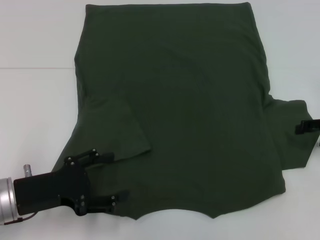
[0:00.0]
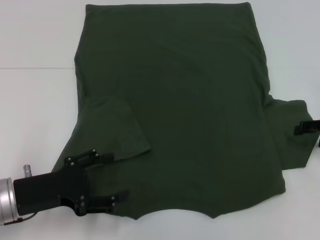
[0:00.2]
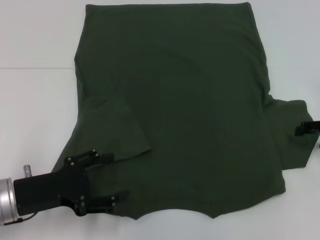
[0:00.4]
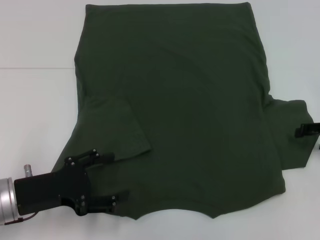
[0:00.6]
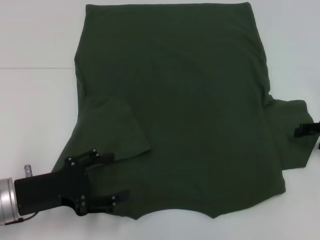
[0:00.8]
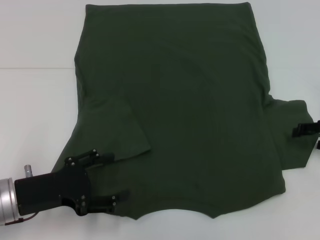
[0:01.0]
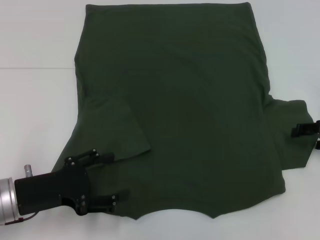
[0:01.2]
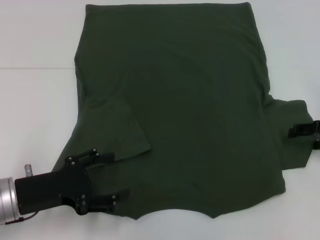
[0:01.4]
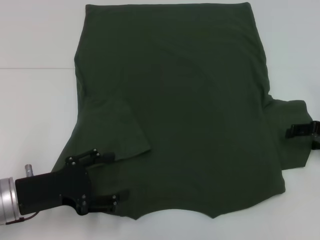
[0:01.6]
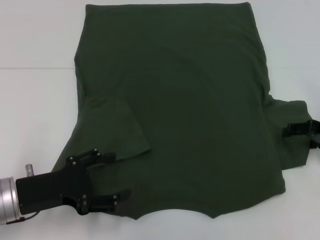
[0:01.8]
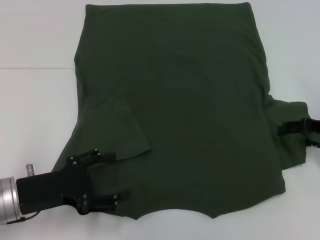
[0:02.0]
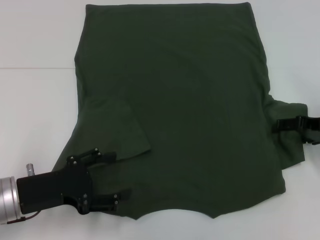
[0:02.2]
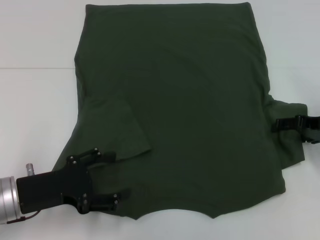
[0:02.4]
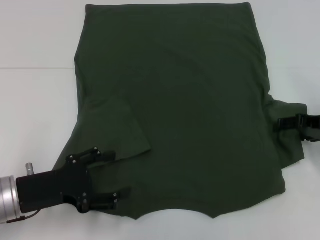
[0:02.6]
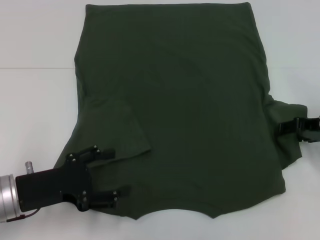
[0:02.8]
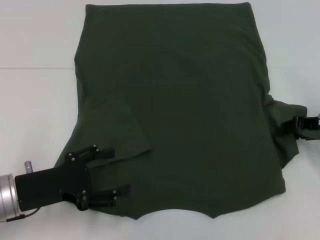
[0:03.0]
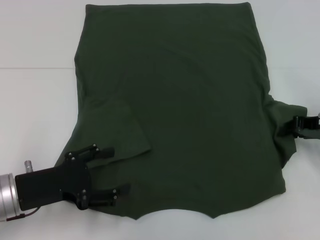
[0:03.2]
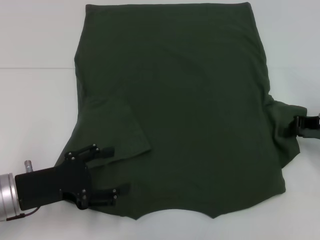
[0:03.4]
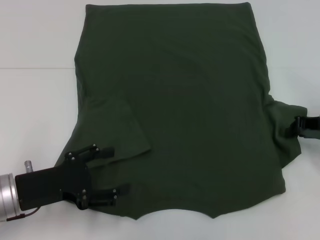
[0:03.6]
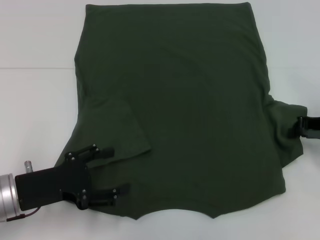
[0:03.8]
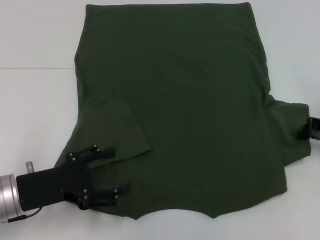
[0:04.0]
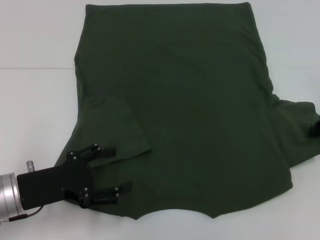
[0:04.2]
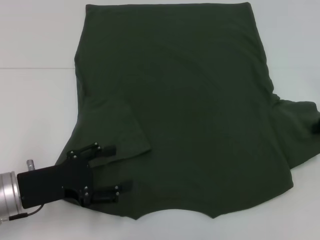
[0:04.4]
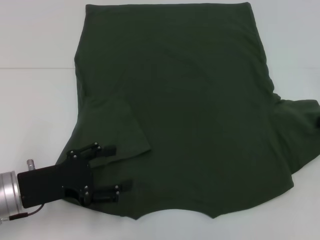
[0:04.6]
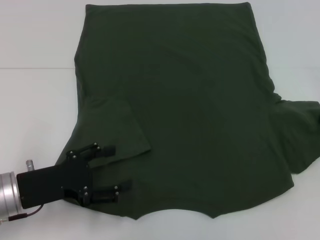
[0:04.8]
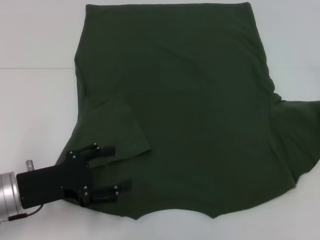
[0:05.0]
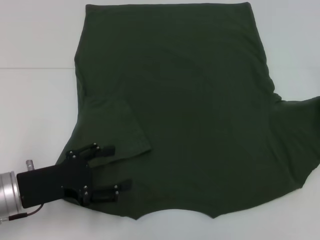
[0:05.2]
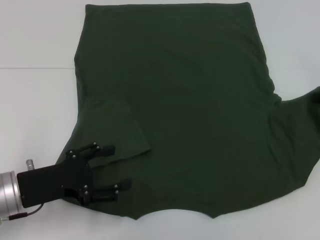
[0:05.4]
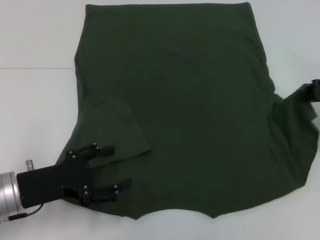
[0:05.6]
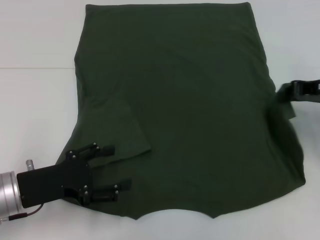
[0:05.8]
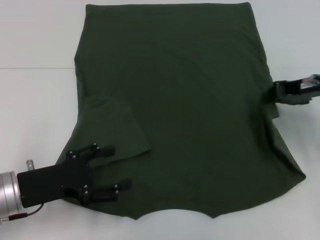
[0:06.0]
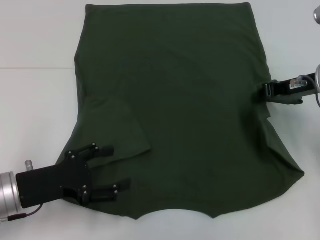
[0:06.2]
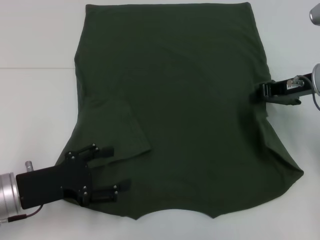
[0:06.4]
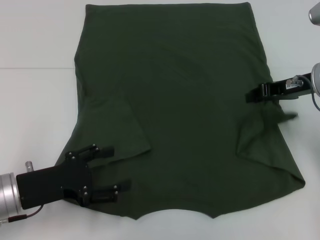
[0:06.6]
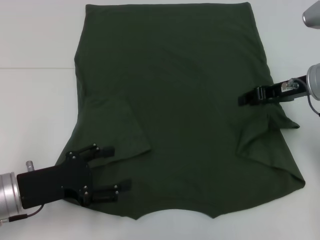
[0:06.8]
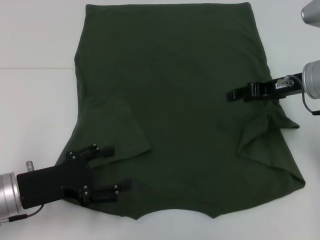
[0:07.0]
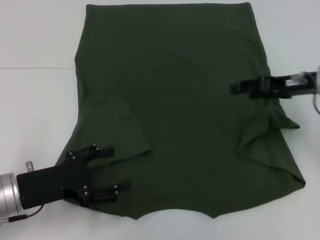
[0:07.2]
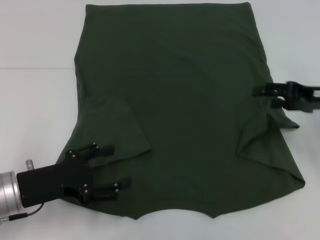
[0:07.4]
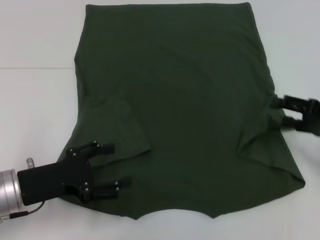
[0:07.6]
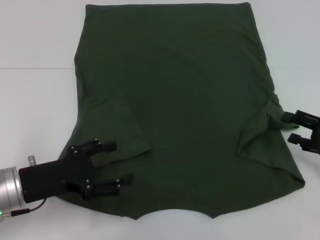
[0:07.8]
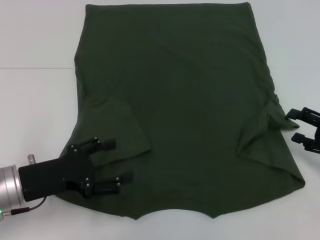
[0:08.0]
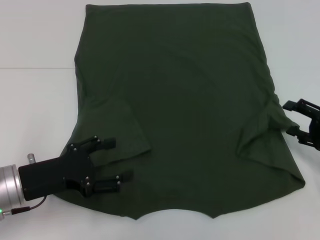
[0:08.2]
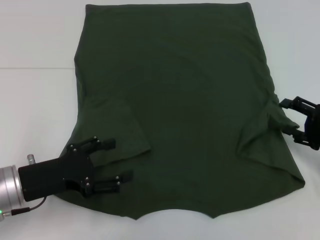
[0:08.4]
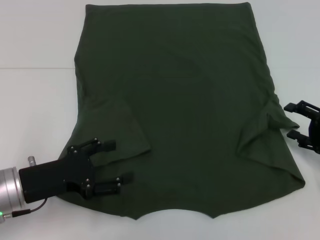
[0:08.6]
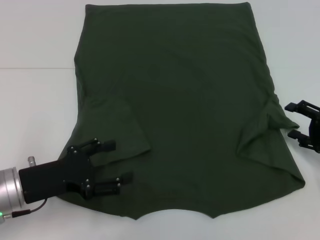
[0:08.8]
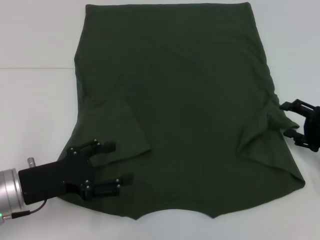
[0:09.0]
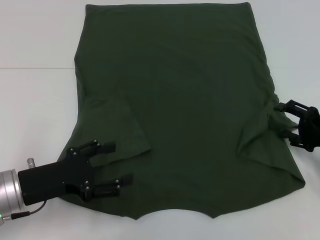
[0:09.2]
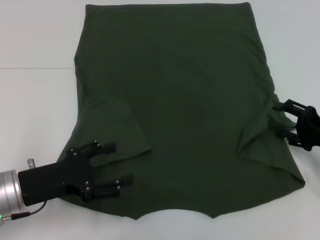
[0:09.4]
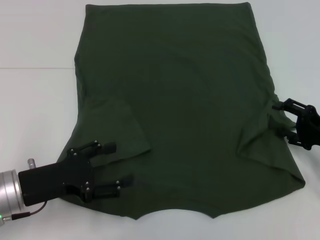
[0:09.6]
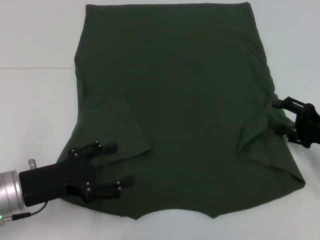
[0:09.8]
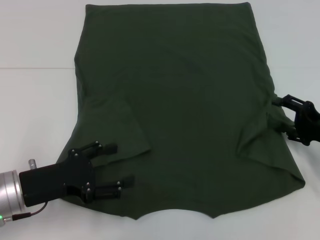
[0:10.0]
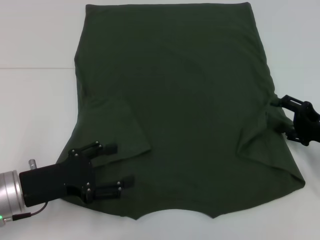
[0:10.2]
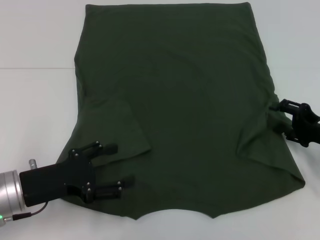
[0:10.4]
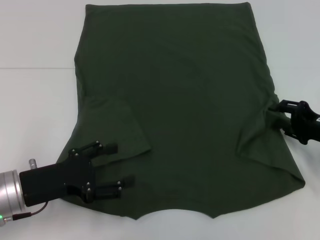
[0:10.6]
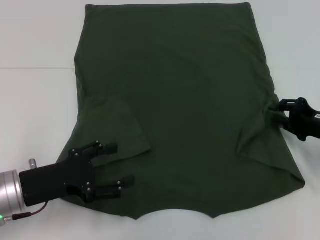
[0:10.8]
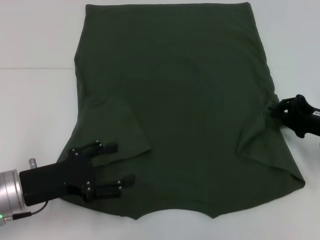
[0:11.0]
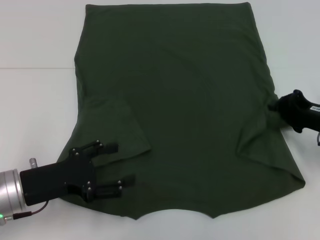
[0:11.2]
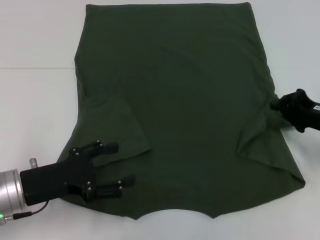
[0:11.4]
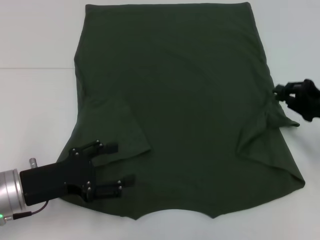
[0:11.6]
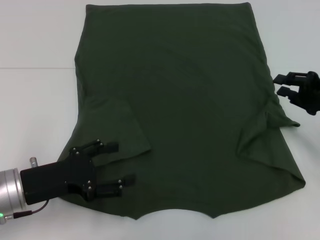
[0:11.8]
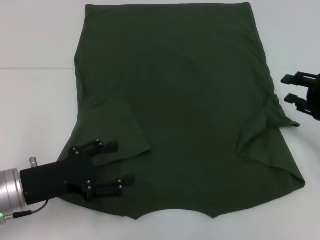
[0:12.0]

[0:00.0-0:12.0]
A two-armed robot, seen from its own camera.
0:00.0 to 0:03.0: There are only small adjustments of the grippers.
0:03.0 to 0:04.4: The right gripper closes its fingers.
0:04.4 to 0:06.0: The right gripper travels to the left by roughly 10 cm.
0:06.0 to 0:07.6: The right gripper travels backward, downward and to the right by some 10 cm, and opens its fingers.
0:07.6 to 0:09.0: The right gripper changes place by roughly 5 cm.
0:09.0 to 0:10.4: The grippers move only a little.
0:10.4 to 0:12.0: The right gripper closes up.

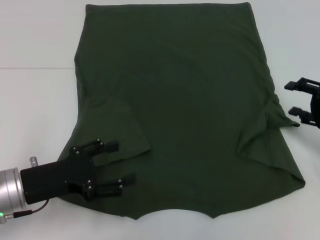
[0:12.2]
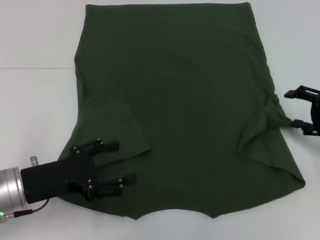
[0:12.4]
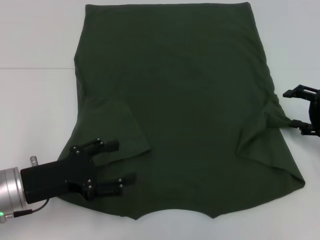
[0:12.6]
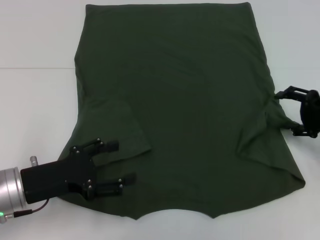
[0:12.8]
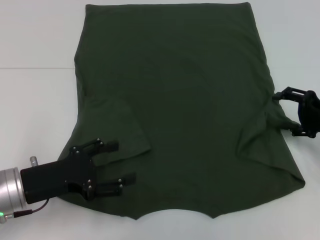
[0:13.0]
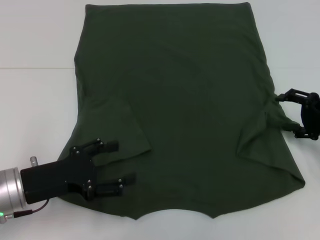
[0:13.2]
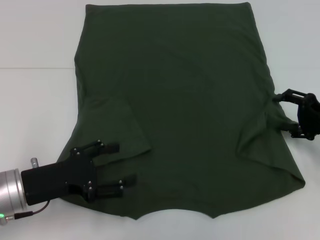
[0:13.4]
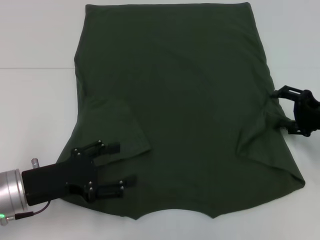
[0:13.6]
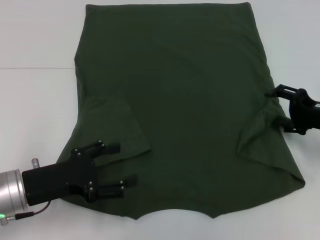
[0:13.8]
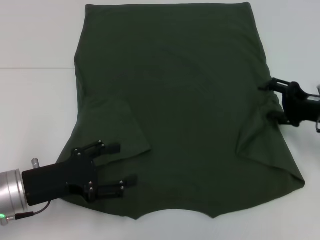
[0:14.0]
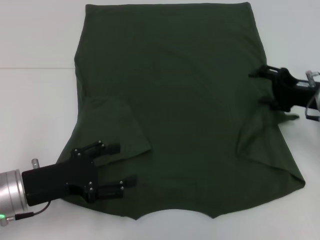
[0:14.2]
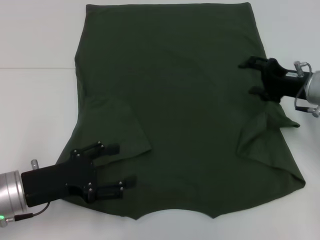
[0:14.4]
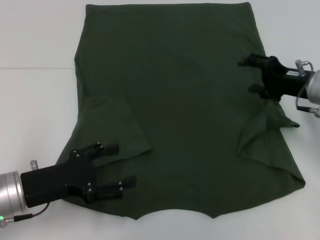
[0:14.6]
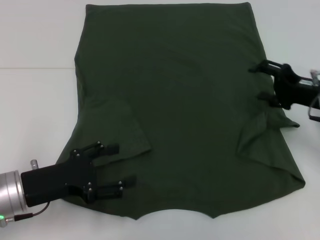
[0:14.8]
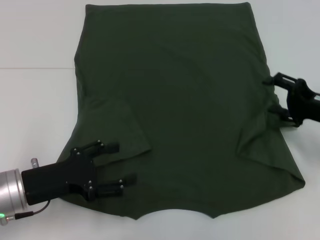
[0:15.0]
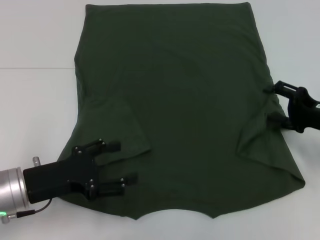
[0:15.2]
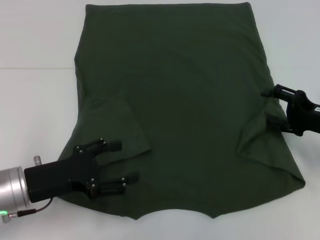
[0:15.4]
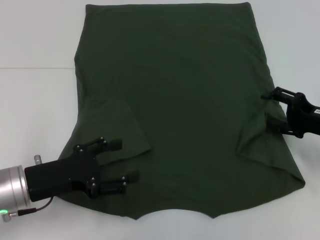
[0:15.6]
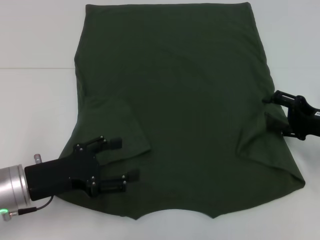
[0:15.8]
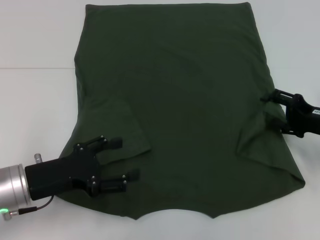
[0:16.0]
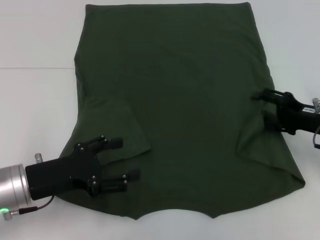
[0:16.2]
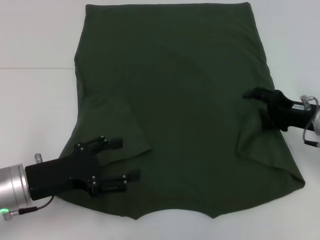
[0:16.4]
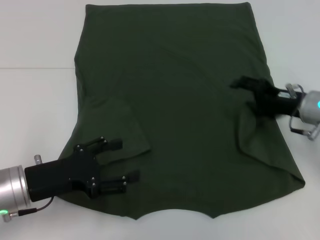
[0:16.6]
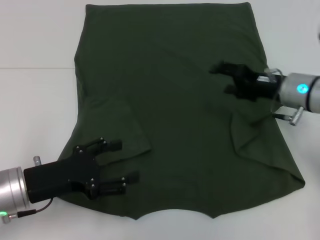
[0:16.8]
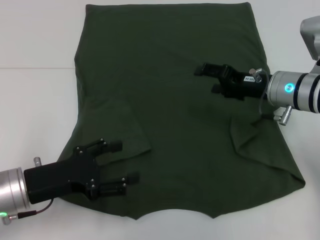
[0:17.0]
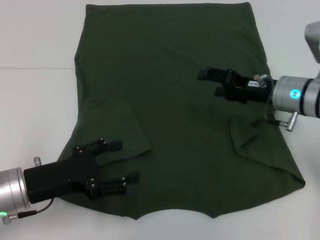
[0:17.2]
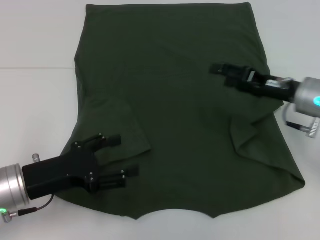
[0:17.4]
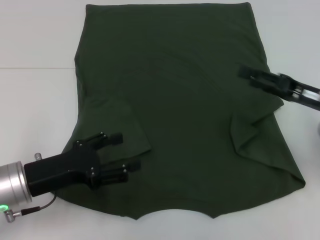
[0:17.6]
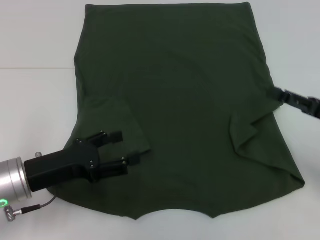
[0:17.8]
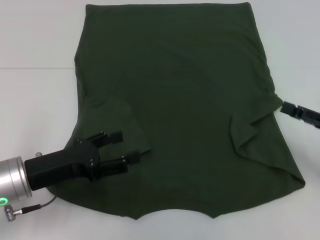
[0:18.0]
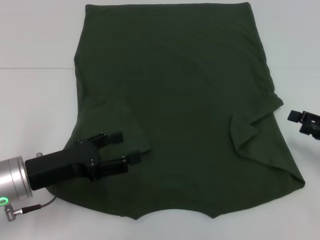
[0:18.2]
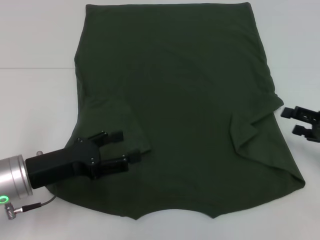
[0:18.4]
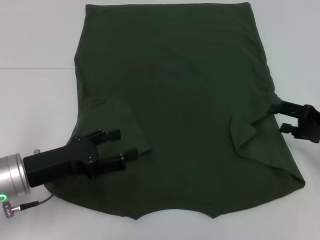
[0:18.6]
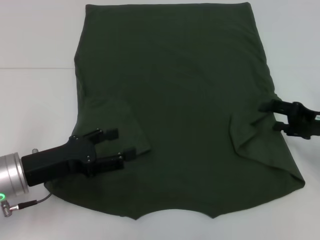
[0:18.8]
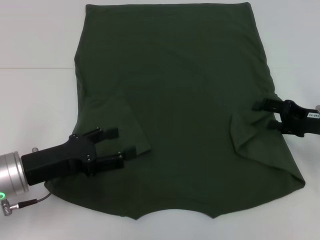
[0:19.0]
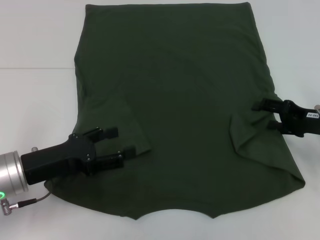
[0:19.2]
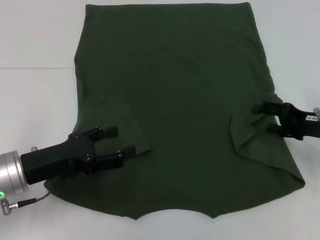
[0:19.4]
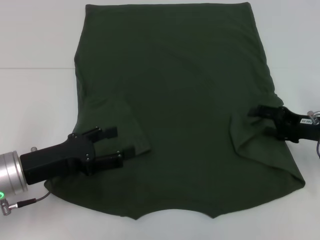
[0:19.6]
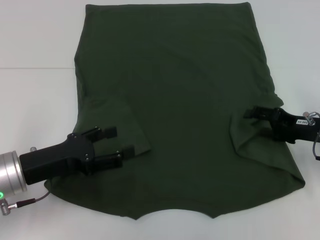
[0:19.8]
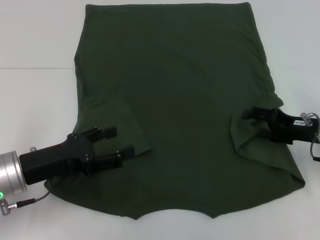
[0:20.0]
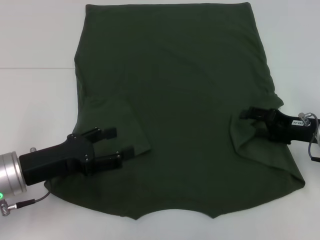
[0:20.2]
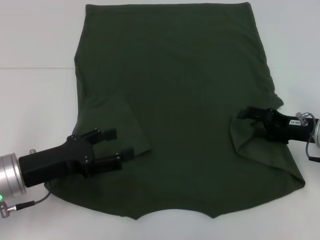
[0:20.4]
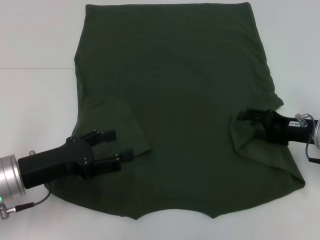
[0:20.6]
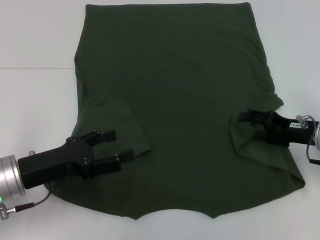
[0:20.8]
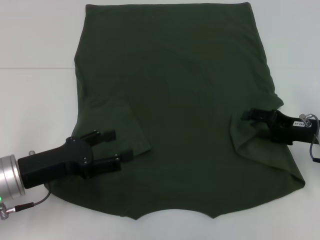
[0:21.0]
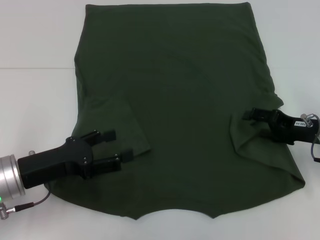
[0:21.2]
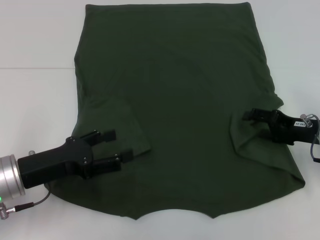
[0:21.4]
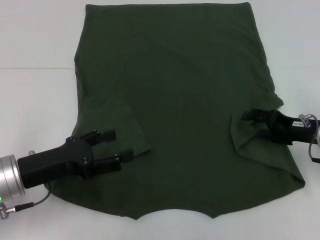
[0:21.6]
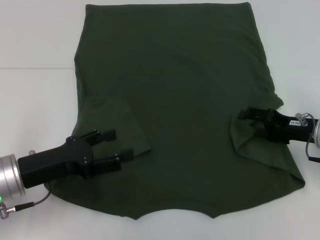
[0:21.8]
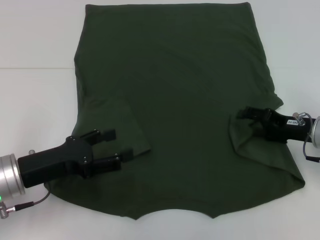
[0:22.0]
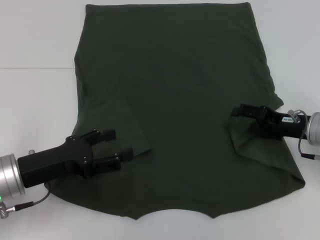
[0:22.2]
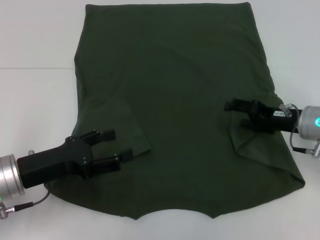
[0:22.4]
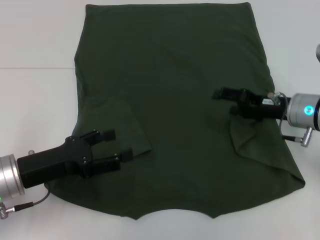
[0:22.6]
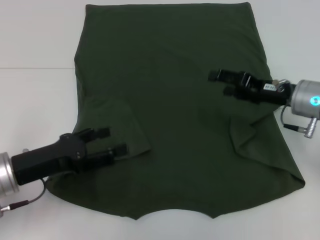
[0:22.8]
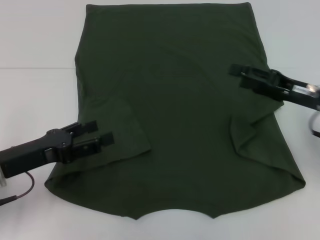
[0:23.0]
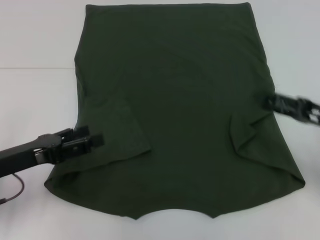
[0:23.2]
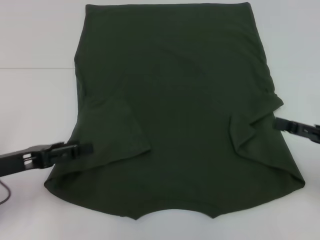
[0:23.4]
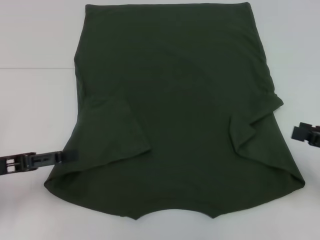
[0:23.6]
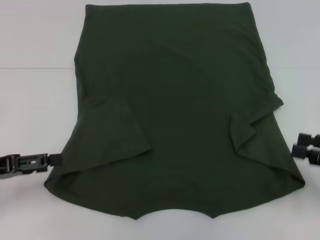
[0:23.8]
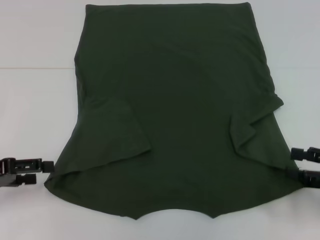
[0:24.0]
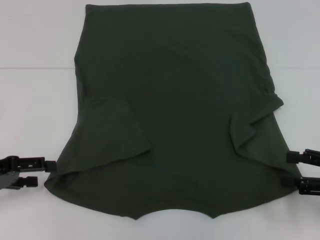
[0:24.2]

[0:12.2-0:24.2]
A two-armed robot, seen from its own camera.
Step, 0:12.2 to 0:22.2: Fold the bottom right sleeve with your right hand.
0:12.2 to 0:13.8: The right gripper opens its fingers.
0:15.2 to 0:16.6: The right gripper moves to the left, about 5 cm.
0:16.6 to 0:18.2: The right gripper travels to the right and backward by roughly 15 cm.
0:18.2 to 0:19.8: The right gripper goes approximately 10 cm to the left and forward.
0:19.8 to 0:21.2: Both grippers stay put.
0:21.2 to 0:22.6: The right gripper moves to the left, approximately 5 cm.
0:22.6 to 0:24.2: The right gripper goes about 20 cm backward and to the right; the left gripper heads to the left, covering approximately 10 cm.
